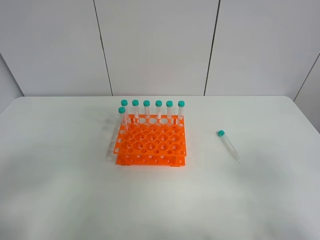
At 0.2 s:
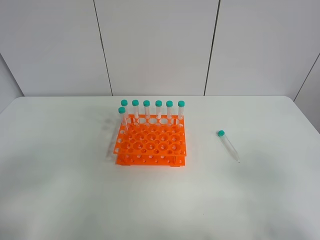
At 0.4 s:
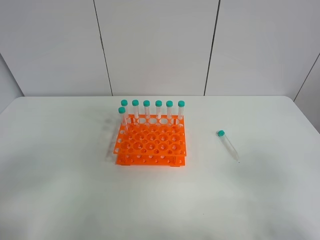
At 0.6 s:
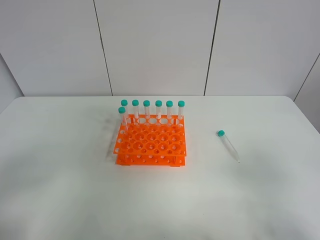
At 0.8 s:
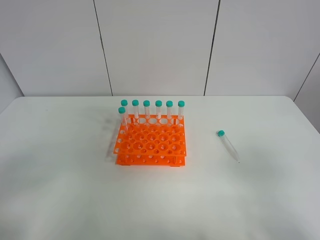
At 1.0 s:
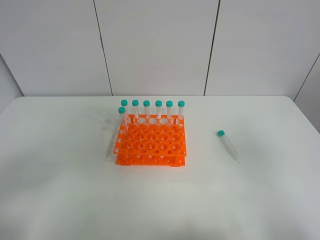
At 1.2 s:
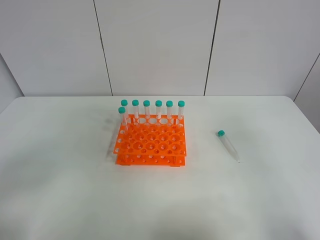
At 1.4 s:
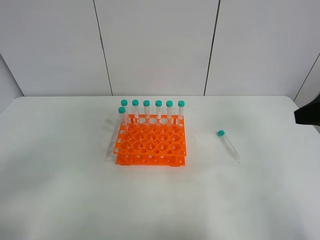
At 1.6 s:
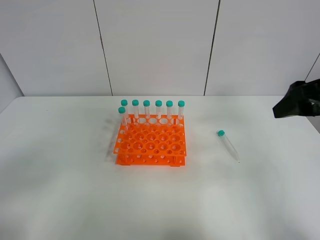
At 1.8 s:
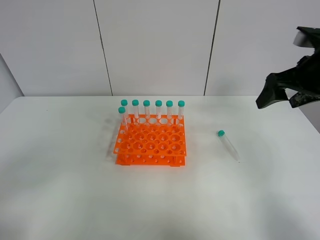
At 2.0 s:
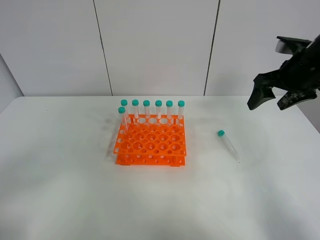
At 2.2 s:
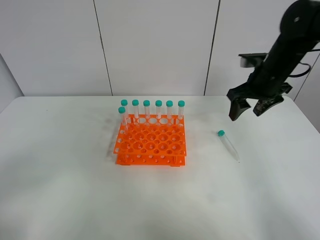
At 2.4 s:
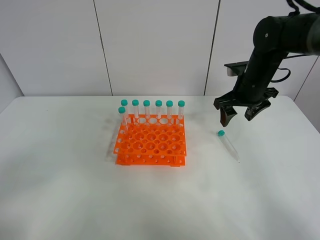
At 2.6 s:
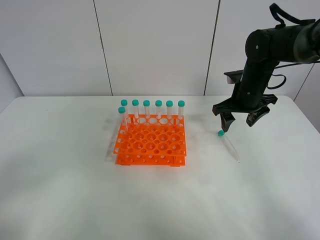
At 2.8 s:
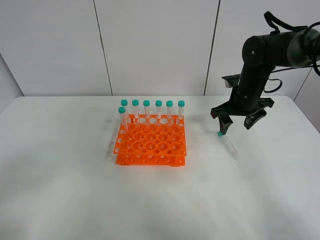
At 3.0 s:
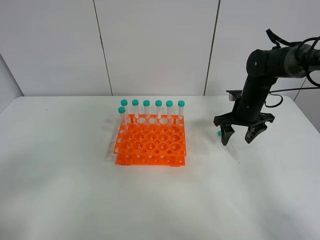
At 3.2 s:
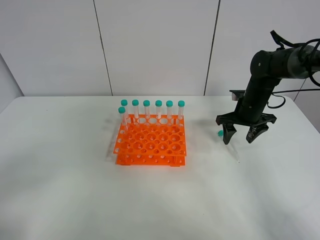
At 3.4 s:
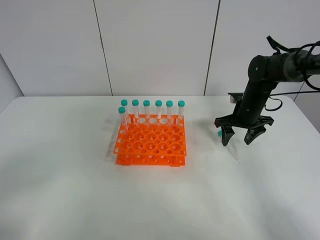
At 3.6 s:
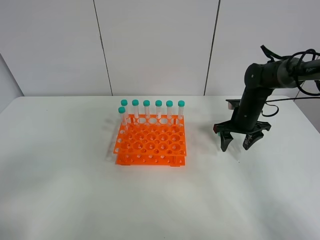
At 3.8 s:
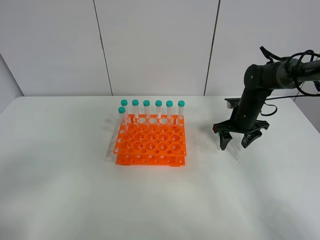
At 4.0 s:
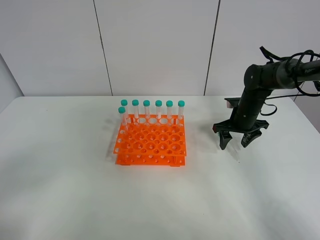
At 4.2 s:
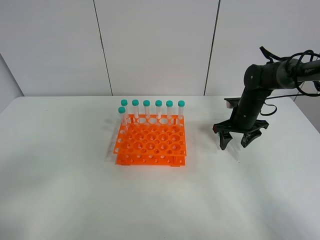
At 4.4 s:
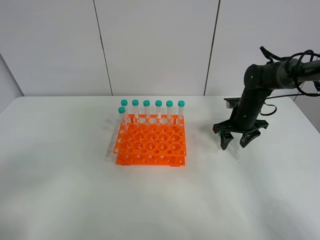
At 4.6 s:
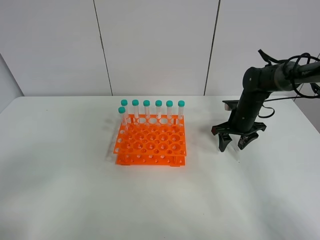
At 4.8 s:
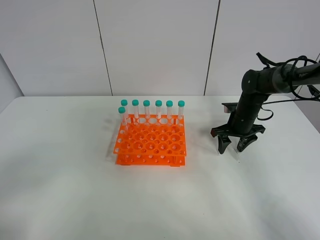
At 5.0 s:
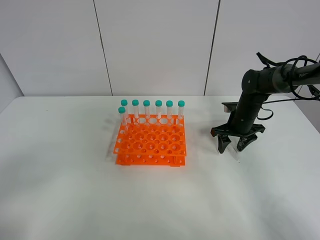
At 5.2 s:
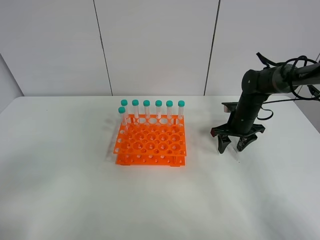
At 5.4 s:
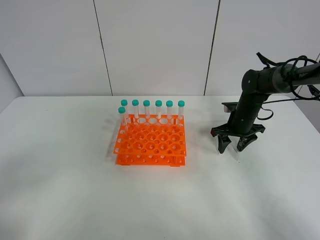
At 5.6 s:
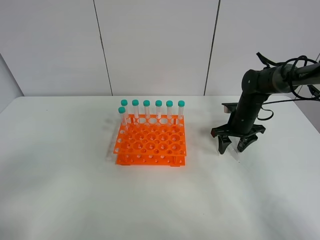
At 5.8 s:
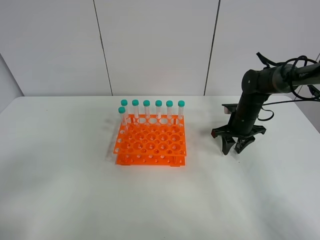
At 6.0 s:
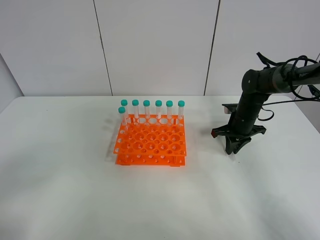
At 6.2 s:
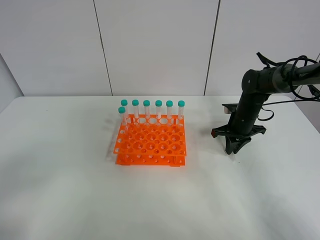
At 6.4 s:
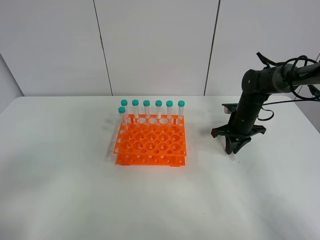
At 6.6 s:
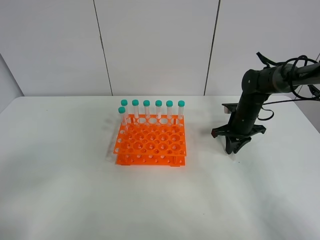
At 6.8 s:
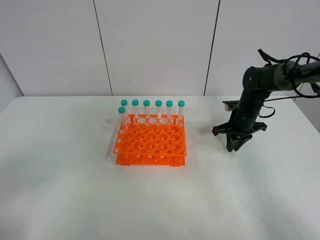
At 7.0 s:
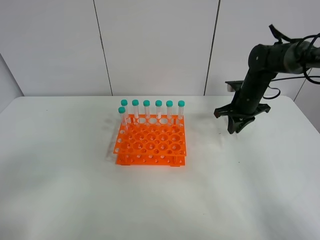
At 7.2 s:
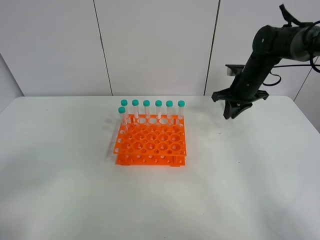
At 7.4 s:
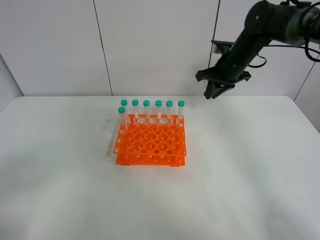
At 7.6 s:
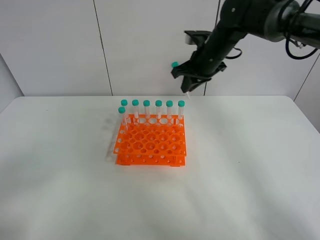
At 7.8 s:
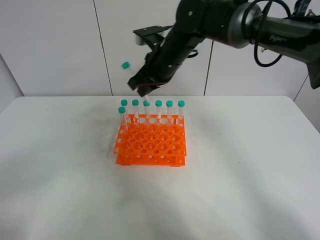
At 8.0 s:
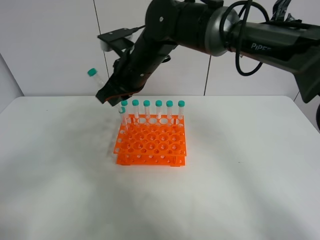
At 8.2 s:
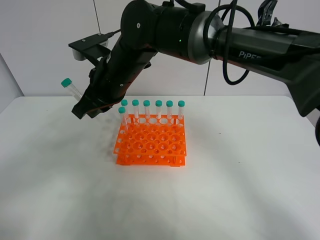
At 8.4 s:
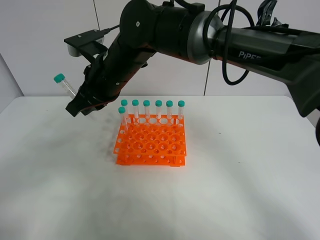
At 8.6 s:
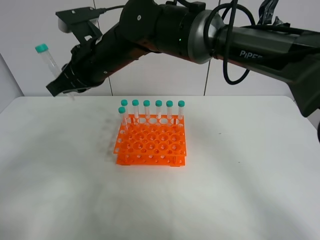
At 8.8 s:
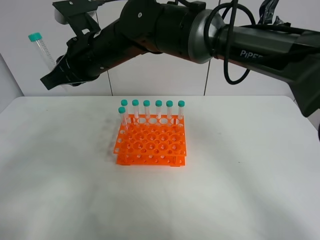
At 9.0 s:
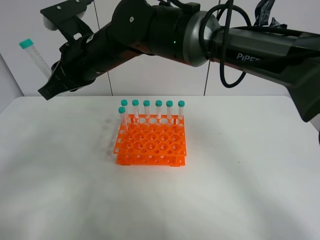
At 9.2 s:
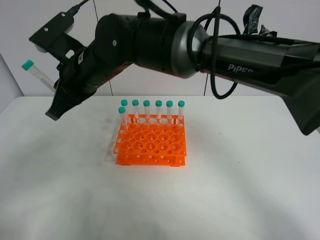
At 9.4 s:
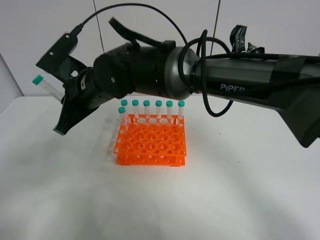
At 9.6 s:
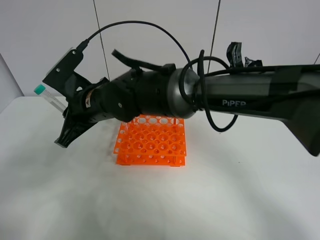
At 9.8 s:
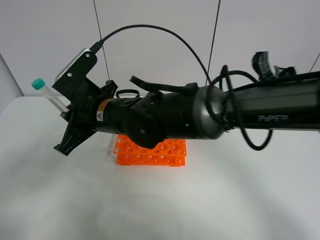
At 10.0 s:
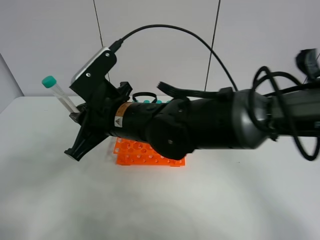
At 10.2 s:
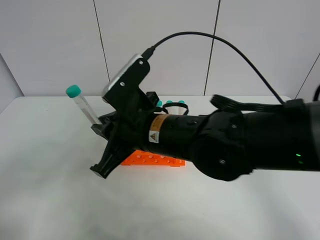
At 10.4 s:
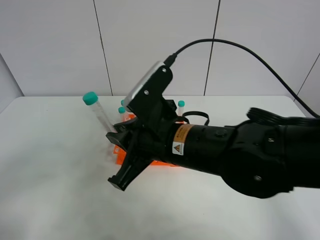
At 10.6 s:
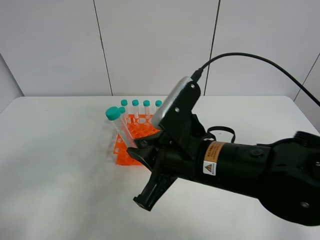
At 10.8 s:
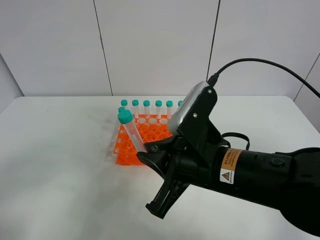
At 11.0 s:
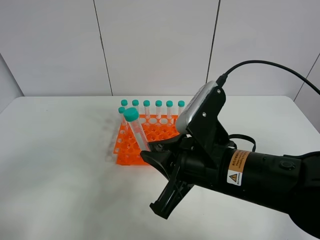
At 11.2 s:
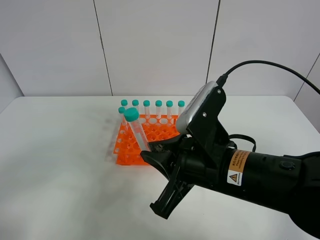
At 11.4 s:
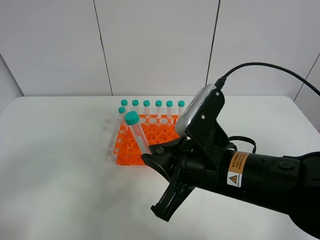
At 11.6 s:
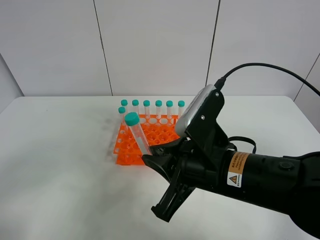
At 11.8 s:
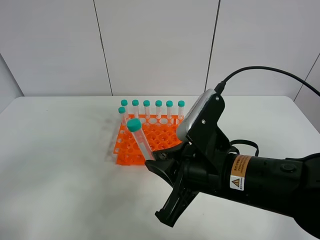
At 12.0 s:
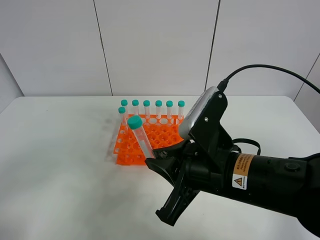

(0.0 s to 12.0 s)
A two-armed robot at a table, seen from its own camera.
Task of the whole recording: Put the test tube on the table back onto the test tube rack.
Step, 0.0 s - 6.2 s: Pick up the test tube with the right gripper.
0.0 s - 1.6 s: The right gripper is displaced forward by approximately 25 cm.
1.6 s - 3.0 s: The right gripper moves forward and downward, some 25 cm.
3.0 s - 4.4 s: The grippers move only a little.
4.4 s - 6.0 s: The right gripper closes up.
6.0 s - 7.6 s: The right gripper is displaced upward and to the left by approximately 20 cm.
7.6 s - 9.0 s: The right gripper heads to the left and backward, covering about 25 cm.
9.0 s - 10.4 s: The right gripper is displaced backward, to the right and downward by some 20 cm.
10.4 s - 12.0 s: The right gripper heads to the right, covering roughly 5 cm.

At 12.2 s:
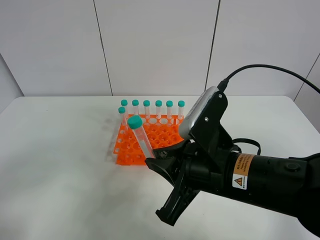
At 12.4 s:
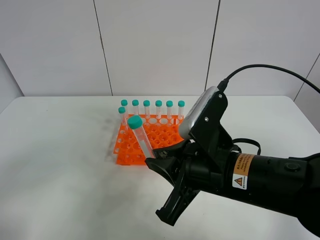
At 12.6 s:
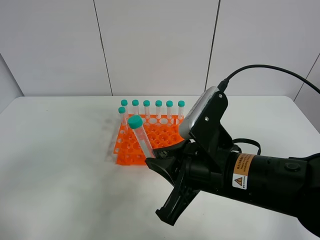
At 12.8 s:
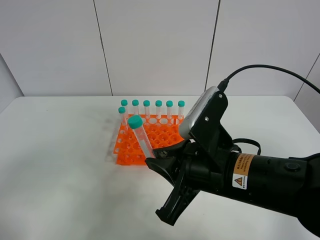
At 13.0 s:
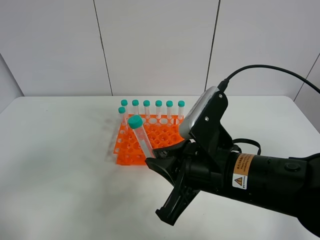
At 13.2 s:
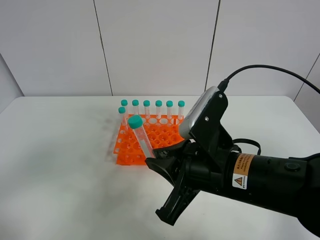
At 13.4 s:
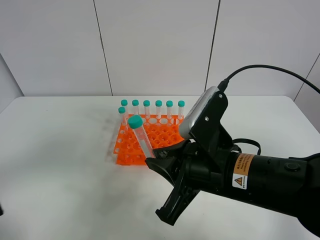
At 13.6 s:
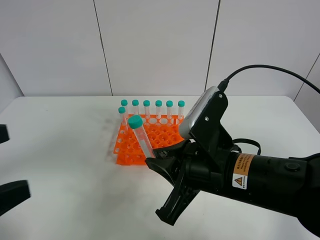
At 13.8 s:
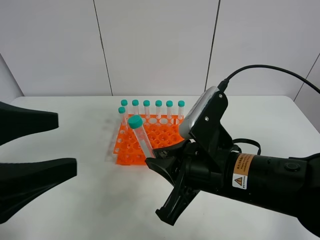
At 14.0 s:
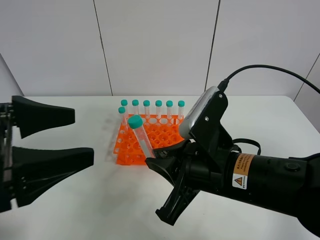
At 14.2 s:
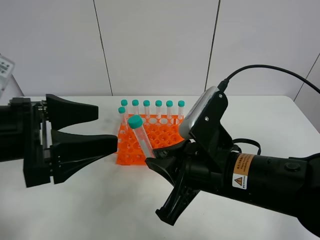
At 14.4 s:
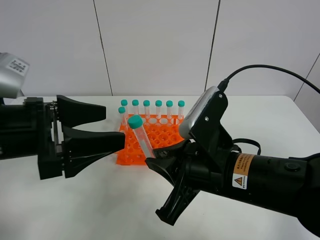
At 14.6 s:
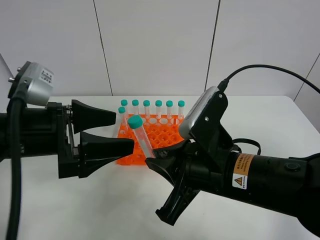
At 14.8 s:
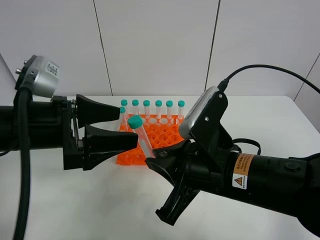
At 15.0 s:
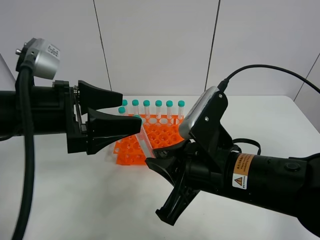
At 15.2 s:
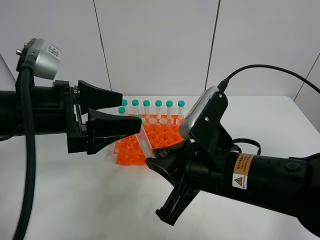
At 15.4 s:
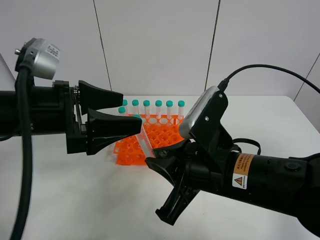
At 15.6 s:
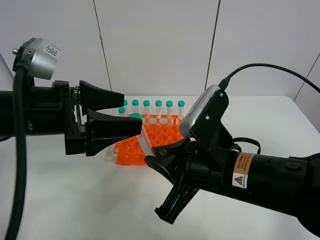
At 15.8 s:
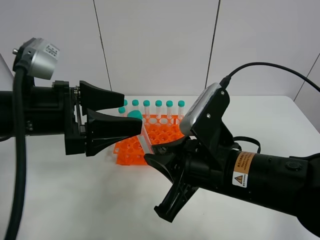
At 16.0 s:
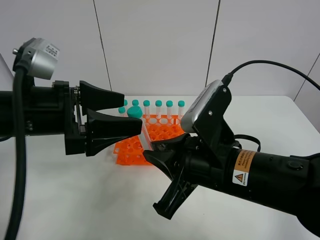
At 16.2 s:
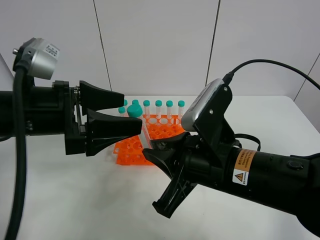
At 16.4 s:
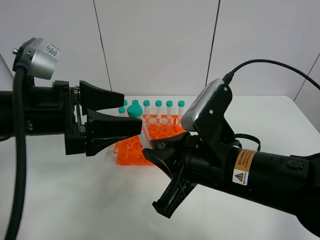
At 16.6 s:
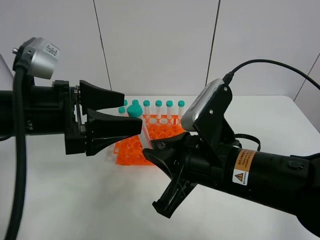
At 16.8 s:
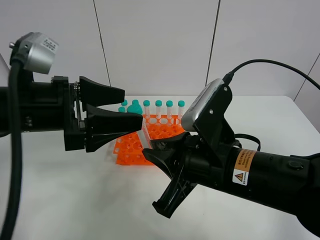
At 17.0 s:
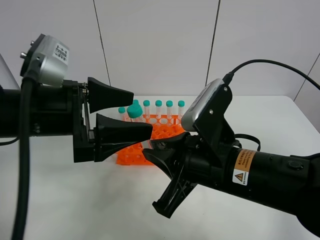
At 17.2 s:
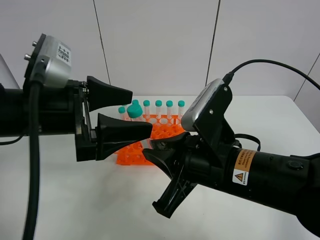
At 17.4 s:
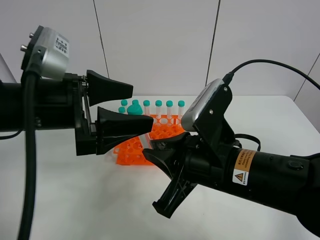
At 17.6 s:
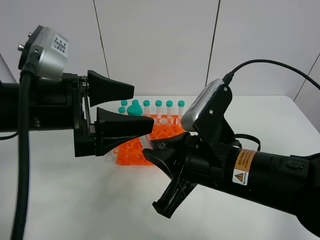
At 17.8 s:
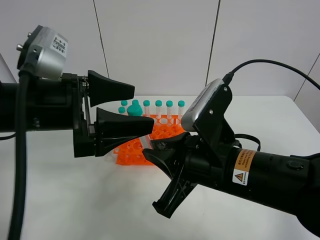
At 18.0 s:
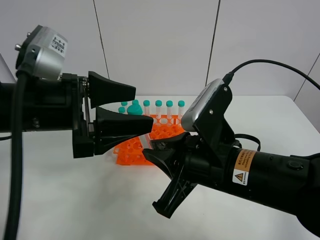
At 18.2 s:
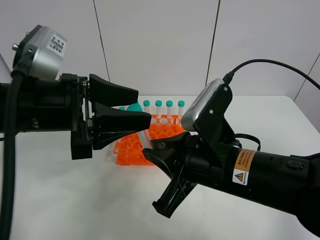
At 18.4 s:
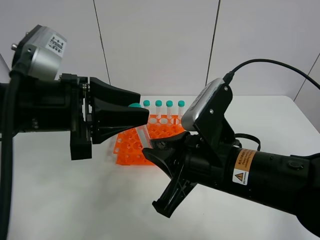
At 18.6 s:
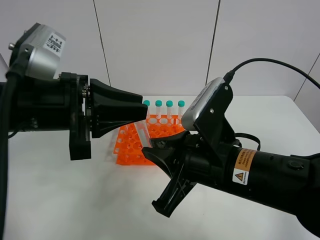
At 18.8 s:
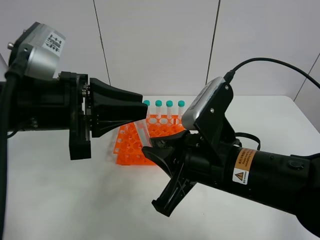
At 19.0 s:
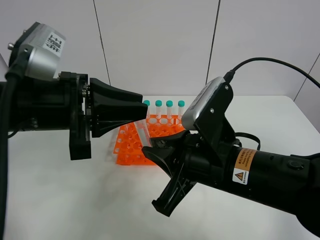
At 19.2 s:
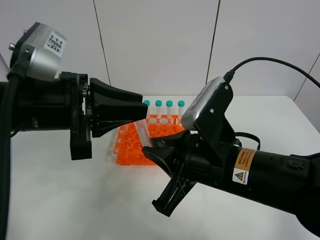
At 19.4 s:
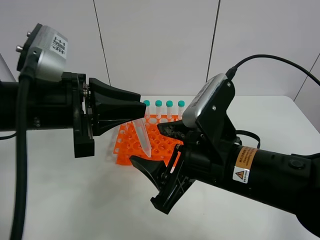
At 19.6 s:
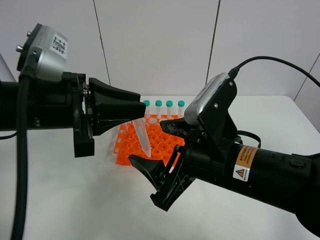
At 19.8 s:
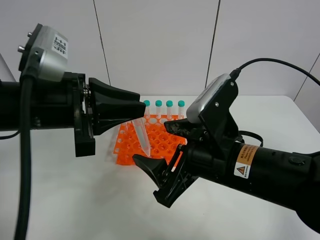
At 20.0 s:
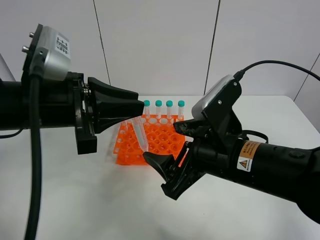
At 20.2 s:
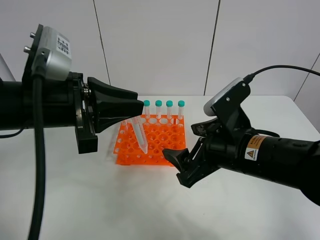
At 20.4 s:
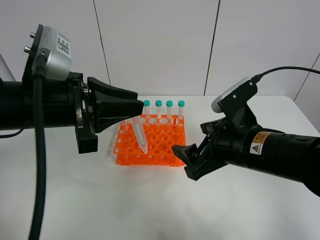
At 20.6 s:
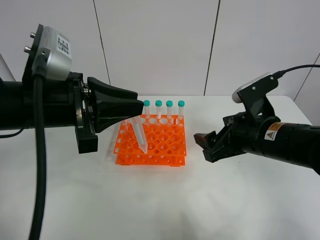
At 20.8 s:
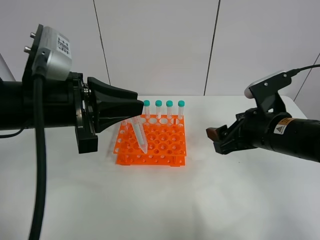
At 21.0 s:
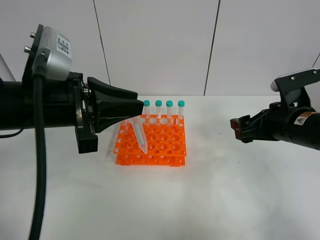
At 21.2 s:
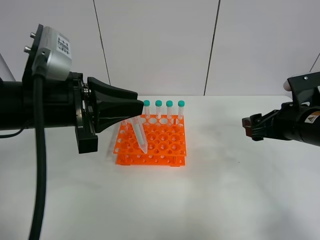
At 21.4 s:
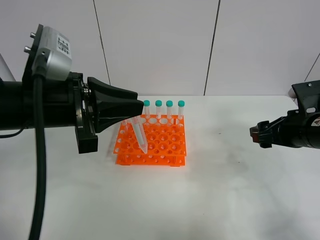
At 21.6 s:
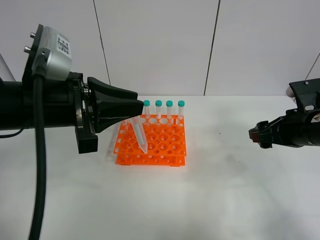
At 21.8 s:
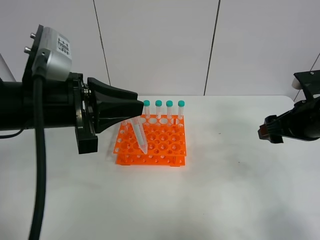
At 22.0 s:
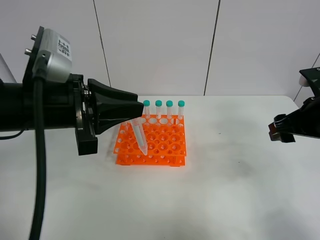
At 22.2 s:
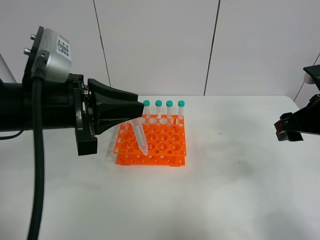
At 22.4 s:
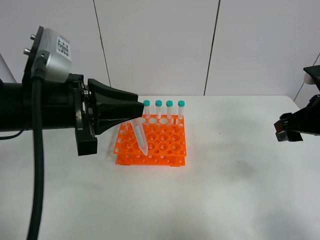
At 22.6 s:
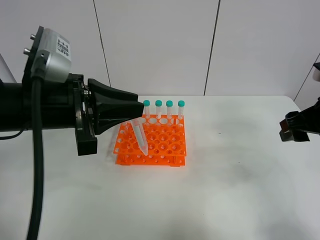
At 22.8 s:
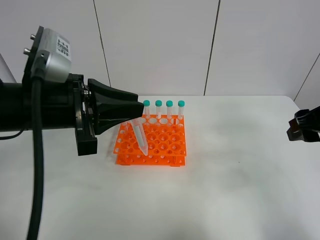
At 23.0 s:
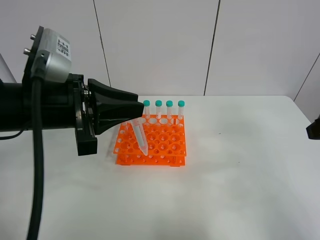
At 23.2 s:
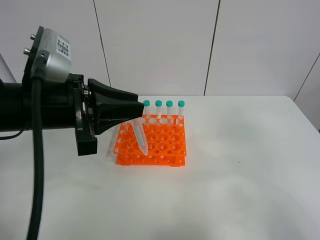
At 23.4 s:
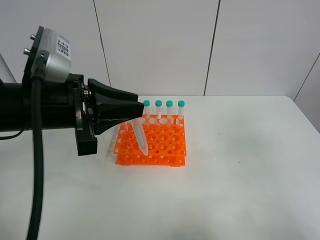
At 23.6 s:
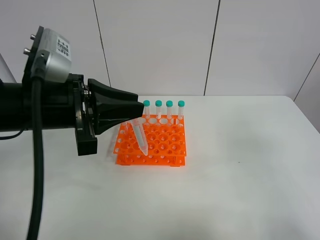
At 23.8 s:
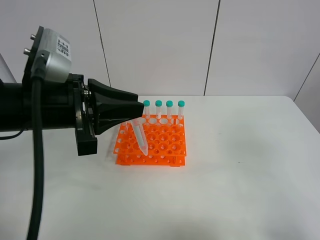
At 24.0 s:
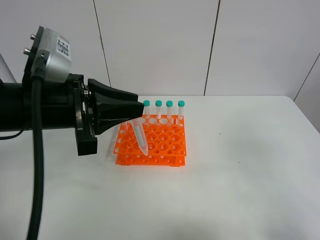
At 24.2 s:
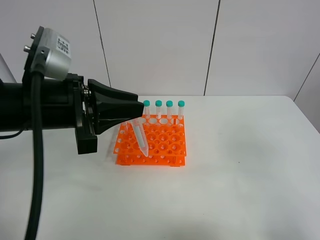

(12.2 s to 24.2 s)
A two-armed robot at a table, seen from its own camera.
Task of the whole recording: Put the test tube on the table back onto the test tube rack.
Step, 12.2 s - 18.8 s: Move the test tube from the right gripper to the left gripper.
12.2 s - 13.8 s: The left gripper travels forward and to the right by approximately 15 cm.
13.8 s - 15.2 s: The left gripper heads forward, covering roughly 10 cm.
15.2 s - 16.6 s: Both grippers stay put.
16.6 s - 18.2 s: The left gripper closes its fingers.
18.2 s - 19.8 s: The right gripper opens its fingers, while the left gripper closes.
19.8 s - 21.2 s: The right gripper is displaced to the right and forward by roughly 20 cm.
21.2 s - 22.6 s: The right gripper goes roughly 5 cm upward.
22.6 s - 24.2 s: The right gripper moves backward and upward, roughly 20 cm.